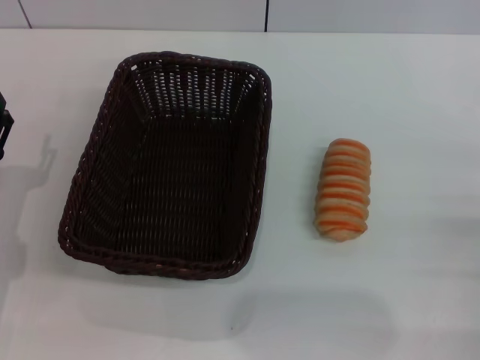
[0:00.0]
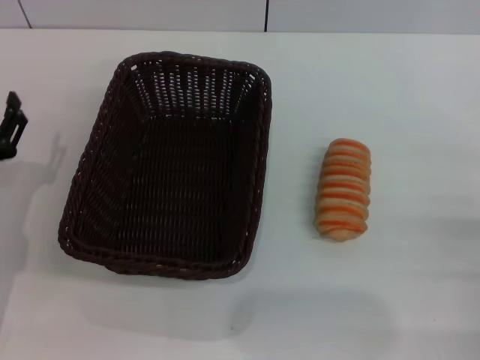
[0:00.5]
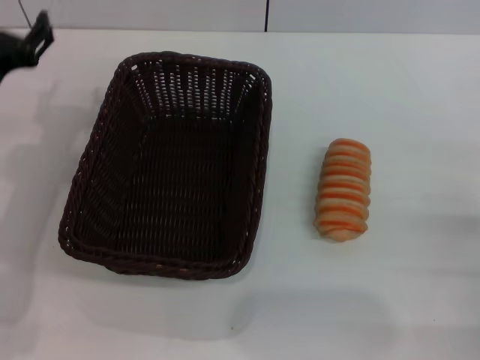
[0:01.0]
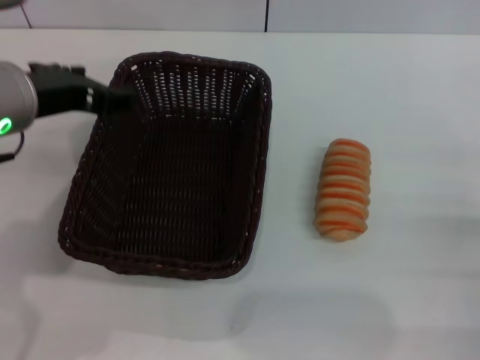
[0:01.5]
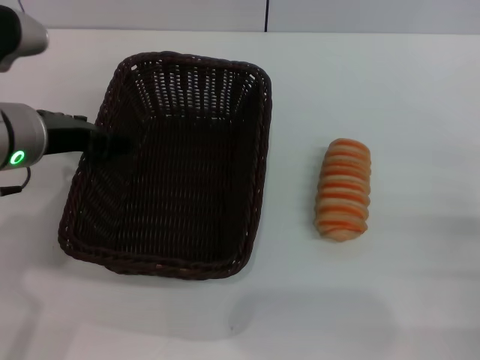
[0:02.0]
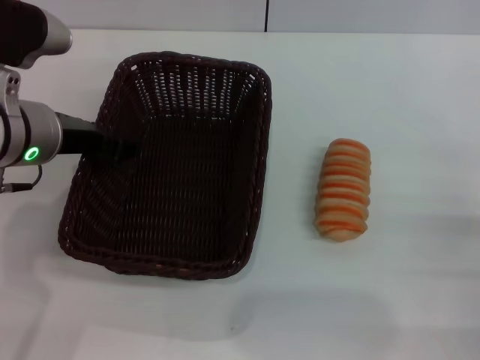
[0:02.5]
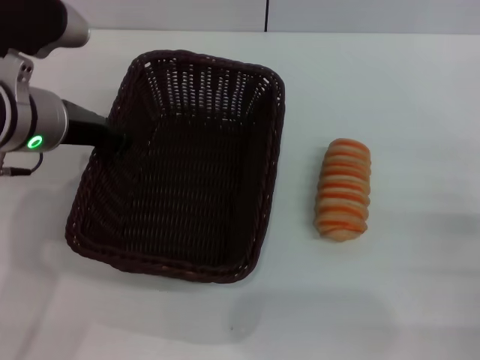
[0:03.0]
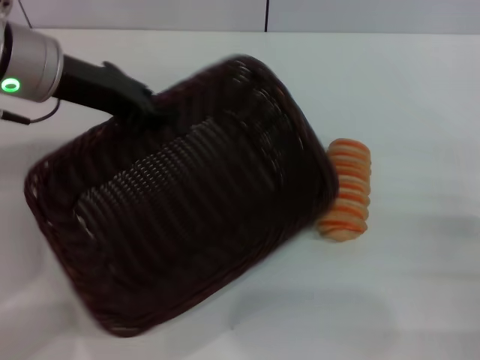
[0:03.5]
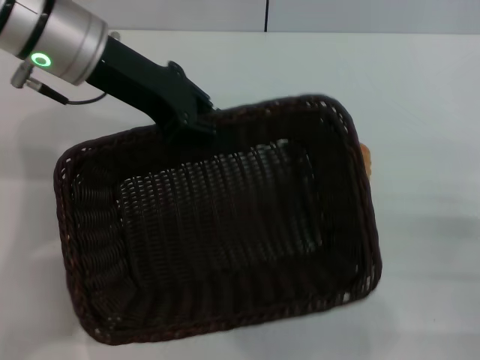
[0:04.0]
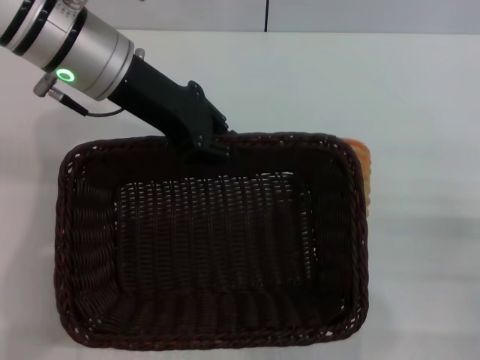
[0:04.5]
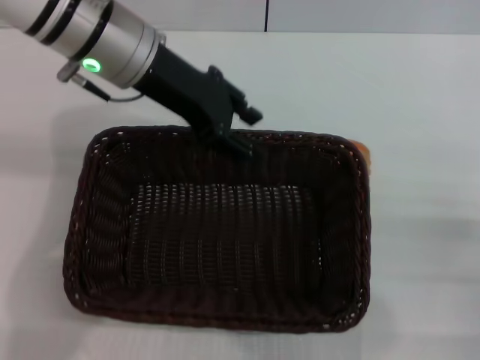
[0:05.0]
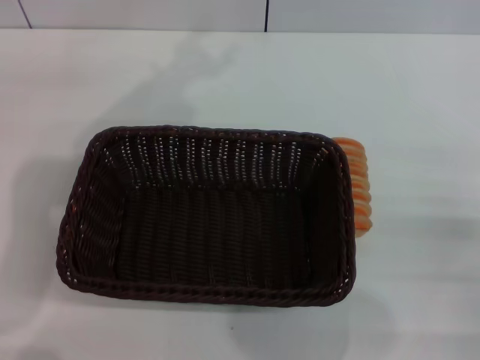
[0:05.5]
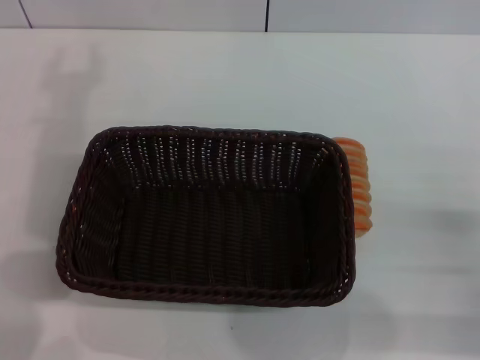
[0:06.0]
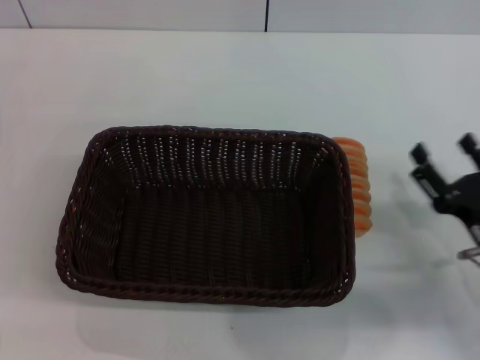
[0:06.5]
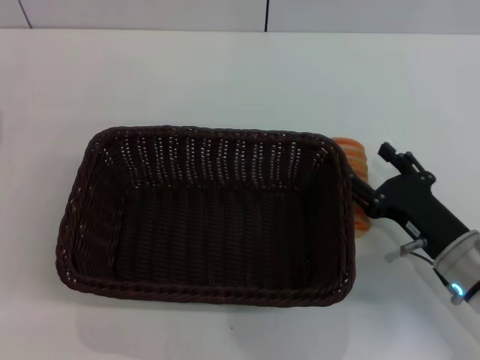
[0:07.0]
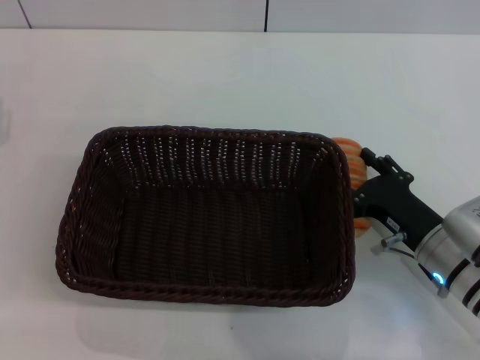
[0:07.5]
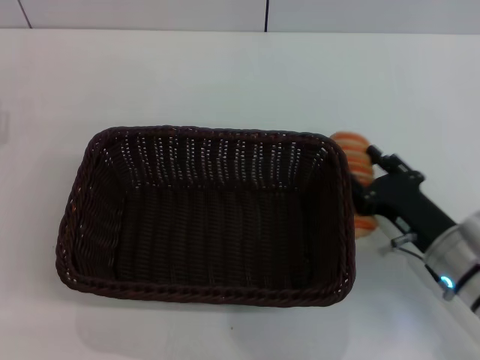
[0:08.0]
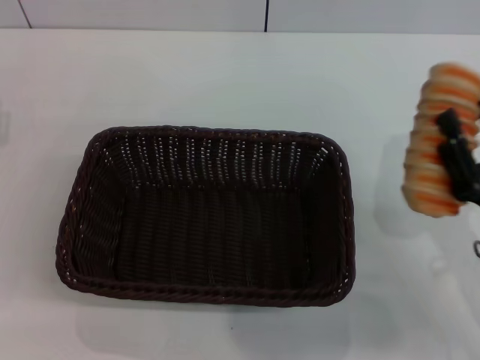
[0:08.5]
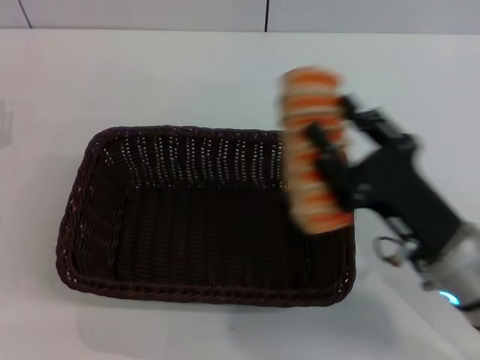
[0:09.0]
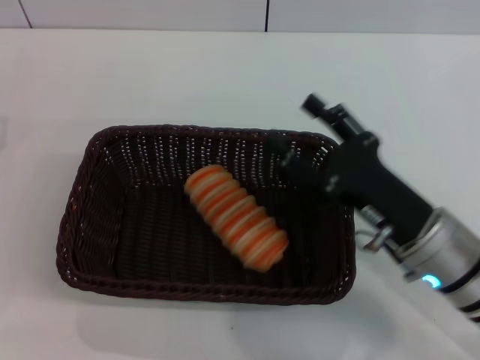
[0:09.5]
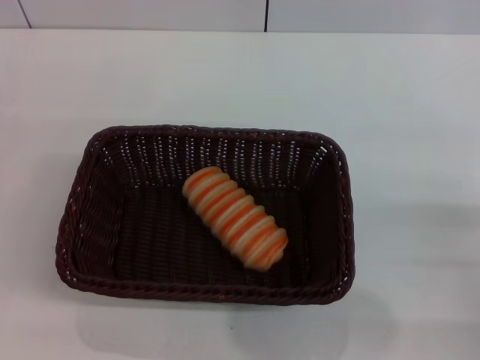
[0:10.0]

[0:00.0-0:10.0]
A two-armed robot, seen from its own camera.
Step, 0:00.0 to 0:04.0: Pick up the dark basket with the left gripper.
Step, 0:04.5 to 0:05.0: Place the dark basket in the center of view with the left gripper.
Step, 0:05.5 to 0:09.0: Pick up the long bread with the right gripper.
0:00.0 to 0:02.0: The left gripper heads upward, to the right and forward, covering roughly 20 cm.
0:02.0 to 0:04.0: The left gripper is displaced forward by some 10 cm, and closes up.
0:04.0 to 0:06.0: The left gripper is displaced to the left and backward by roughly 10 cm, and opens up.
0:06.0 to 0:08.0: The left gripper moves downward and to the left, roughly 15 cm. The right gripper travels to the left and forward by roughly 10 cm.
0:08.0 to 0:10.0: The right gripper is displaced to the right and backward by some 10 cm, and opens.

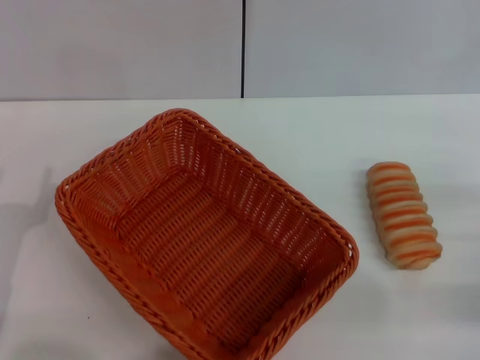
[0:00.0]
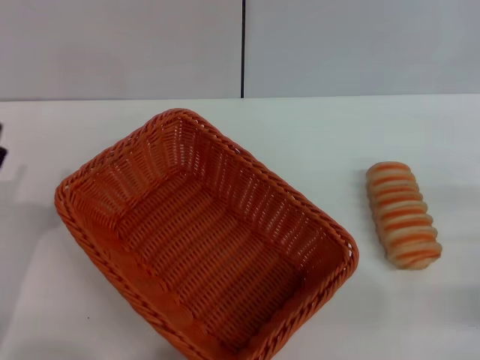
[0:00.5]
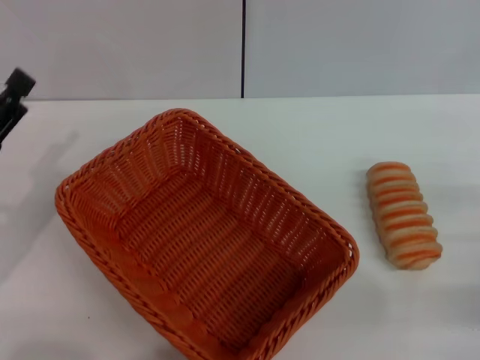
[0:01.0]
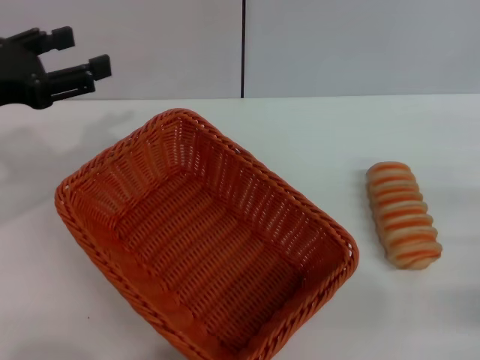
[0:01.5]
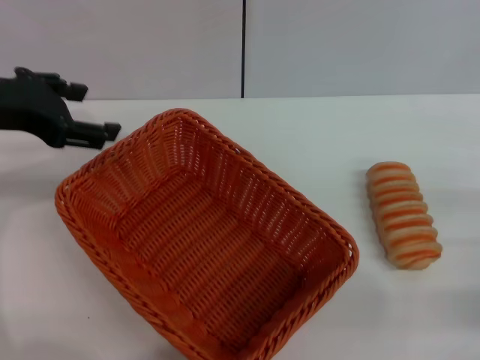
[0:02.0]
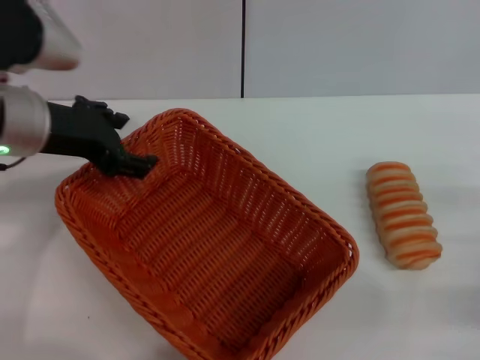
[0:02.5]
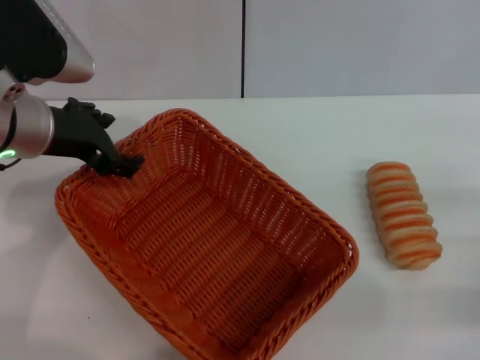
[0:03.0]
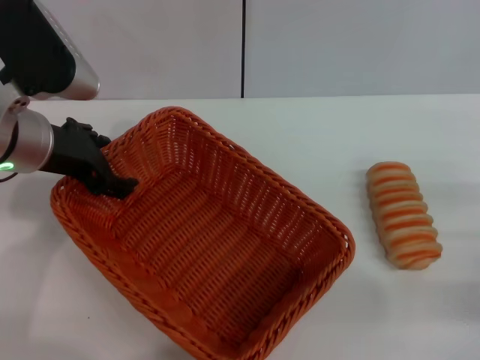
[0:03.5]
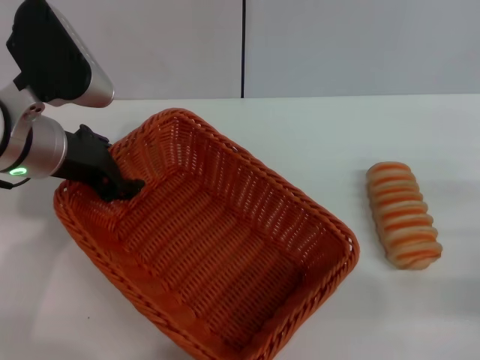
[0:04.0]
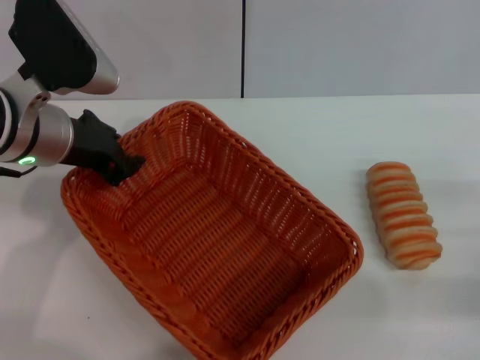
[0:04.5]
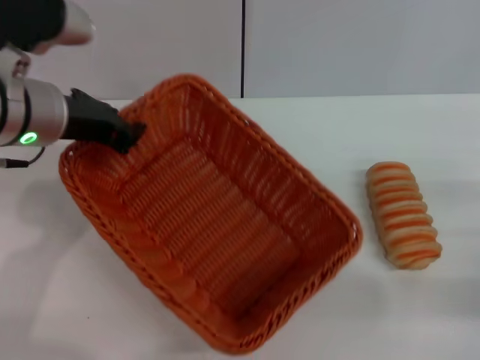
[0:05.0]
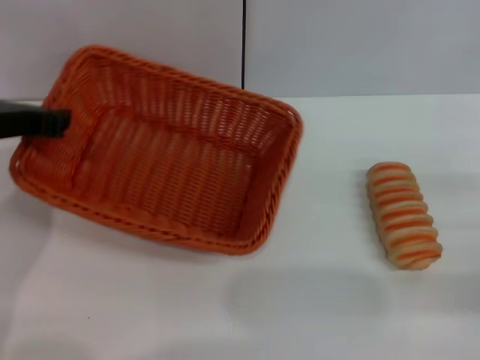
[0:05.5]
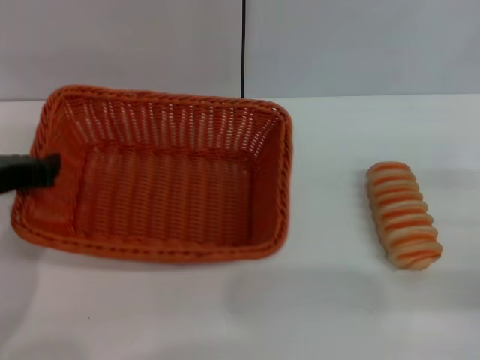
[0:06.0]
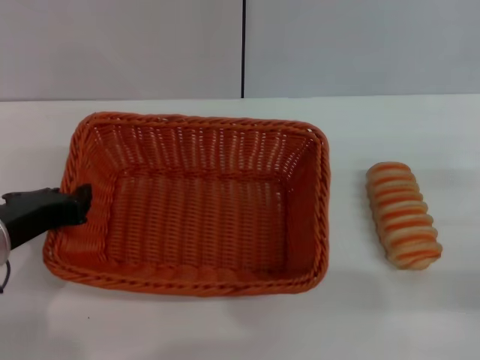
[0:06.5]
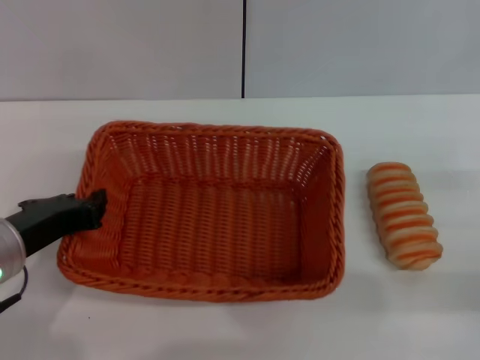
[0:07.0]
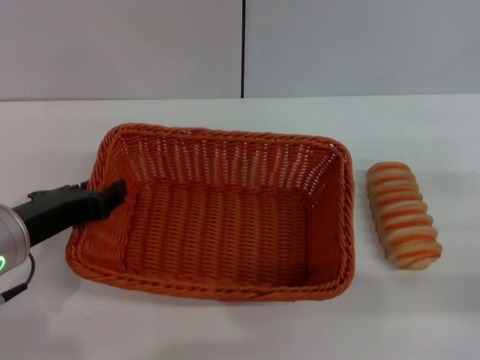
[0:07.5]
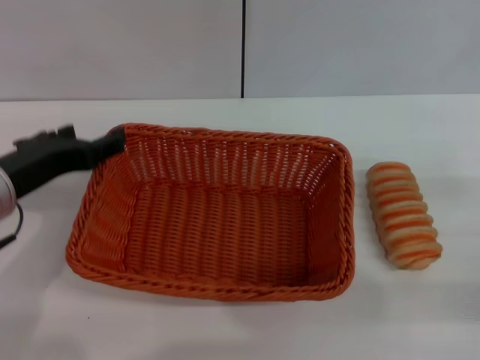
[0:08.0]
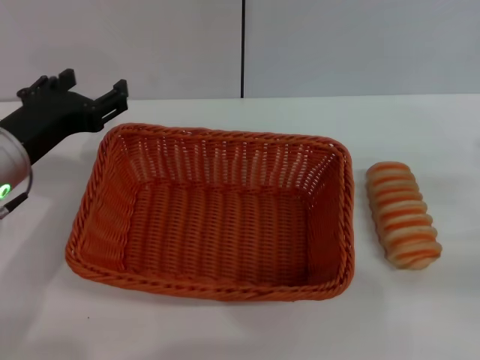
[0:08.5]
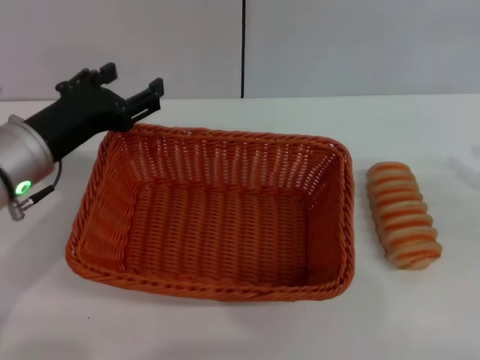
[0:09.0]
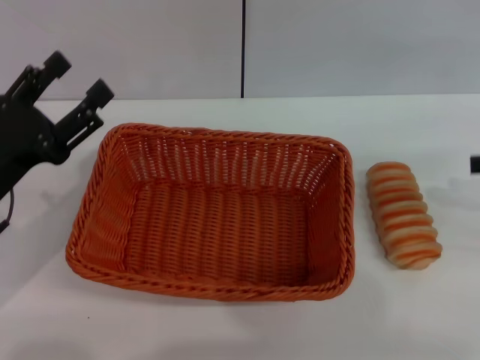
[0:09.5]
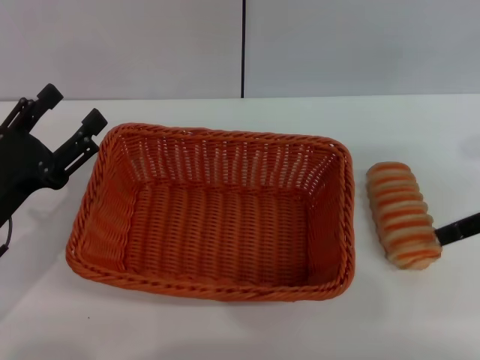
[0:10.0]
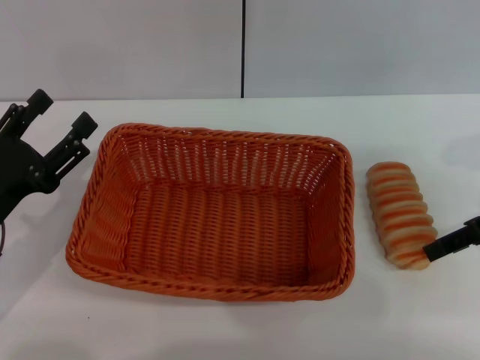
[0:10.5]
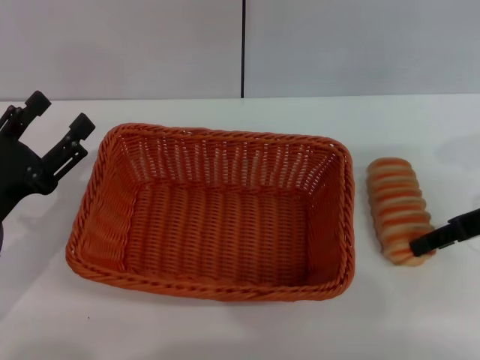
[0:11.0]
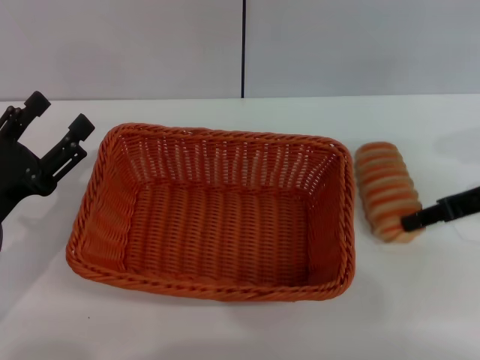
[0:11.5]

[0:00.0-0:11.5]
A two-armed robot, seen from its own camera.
Step, 0:00.0 to 0:05.0: Pick up the light basket with the left gripper.
Step, 0:05.5 to 0:08.0: Place the light basket in the center of view with the left gripper.
0:00.0 to 0:02.0: The left gripper travels upward and forward by some 25 cm.
0:02.0 to 0:04.0: The left gripper shifts about 10 cm to the right and downward.
0:04.0 to 0:06.0: The left gripper travels backward and to the left by approximately 10 cm, and closes up.
0:06.0 to 0:07.5: The left gripper shifts by about 5 cm.
0:07.5 to 0:09.5: The right gripper shifts roughly 15 cm upward and forward, while the left gripper shifts roughly 5 cm to the left, and opens.
0:09.5 to 0:11.5: The right gripper goes approximately 10 cm to the left, and closes up.

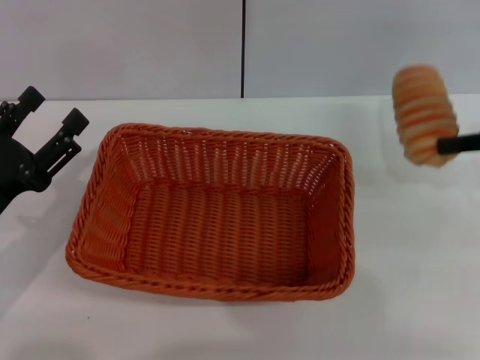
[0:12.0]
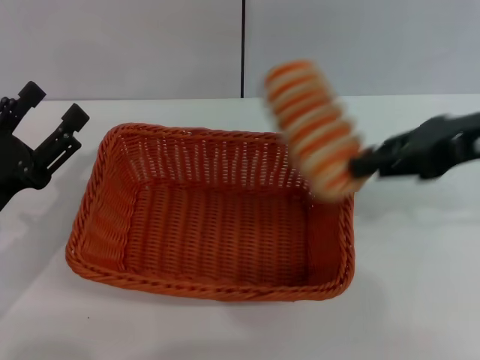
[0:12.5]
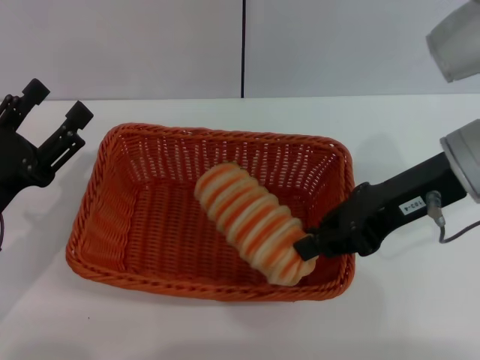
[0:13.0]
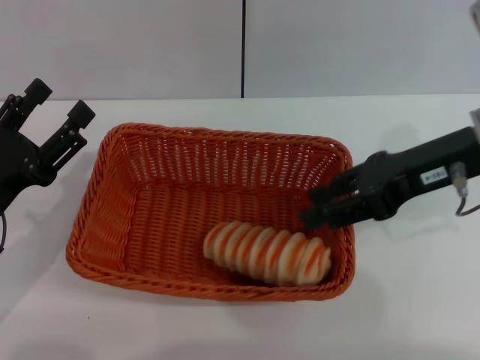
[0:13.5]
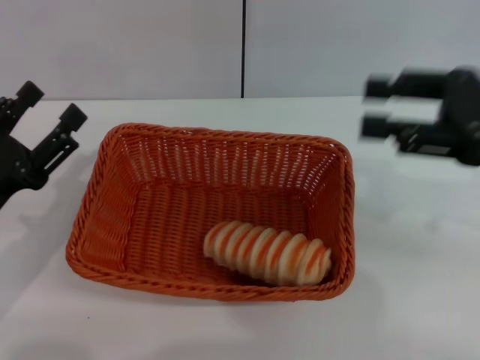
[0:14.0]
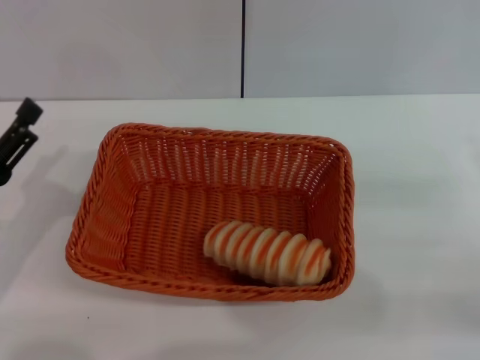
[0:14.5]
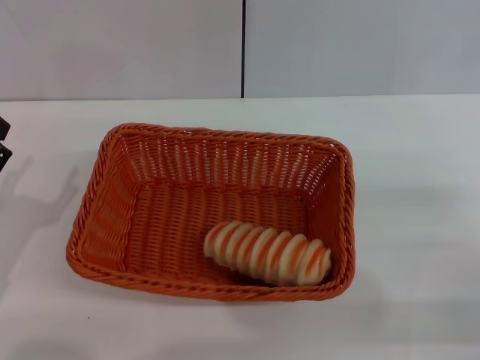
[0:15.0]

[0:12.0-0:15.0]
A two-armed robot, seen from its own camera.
Step, 0:12.5 to 0:13.5: Place the long bread into the light basket with the right gripper.
0:12.0 to 0:13.5: The right gripper shifts approximately 10 cm to the left.
0:13.5 to 0:15.0: The right gripper heads downward, to the right and backward, covering approximately 20 cm, and opens its fingers.
